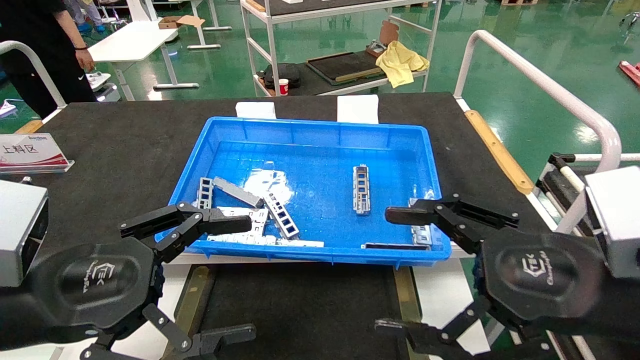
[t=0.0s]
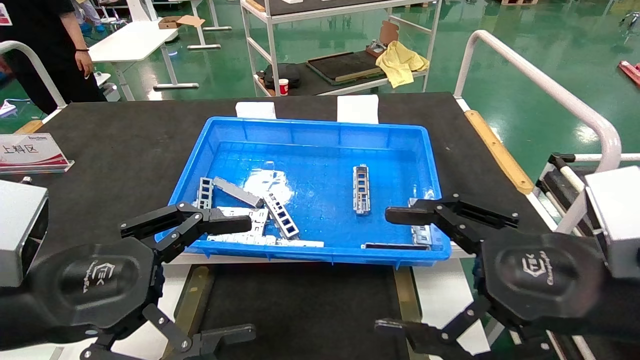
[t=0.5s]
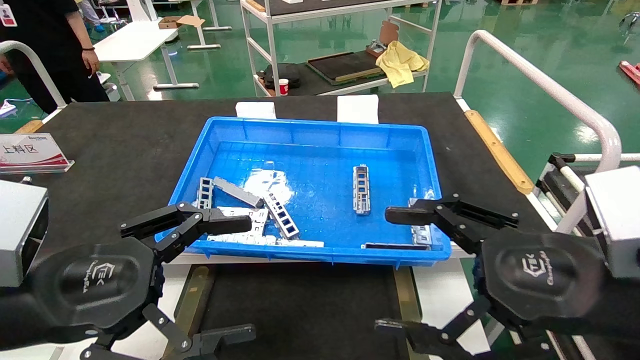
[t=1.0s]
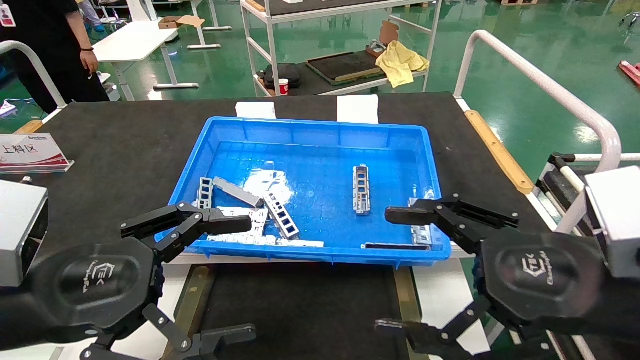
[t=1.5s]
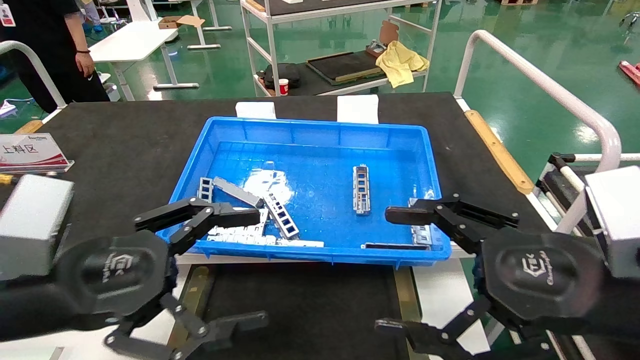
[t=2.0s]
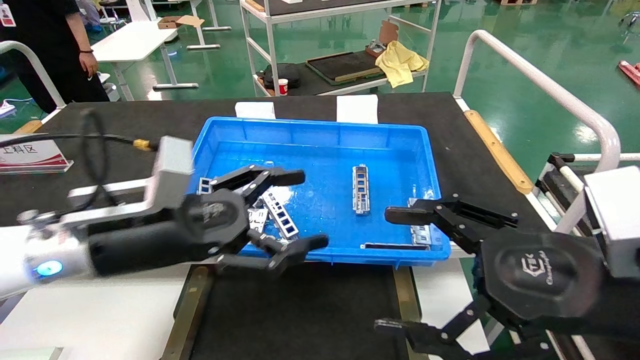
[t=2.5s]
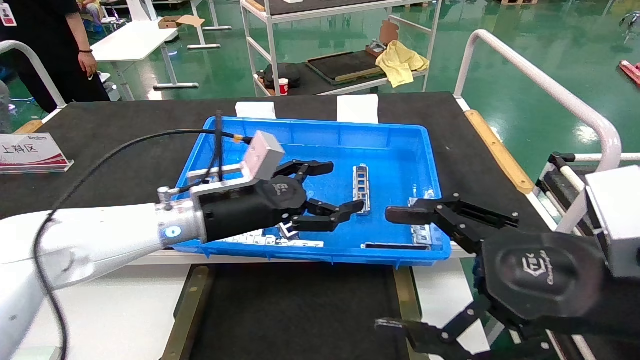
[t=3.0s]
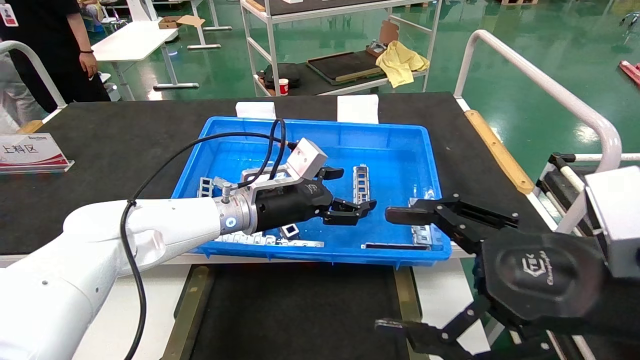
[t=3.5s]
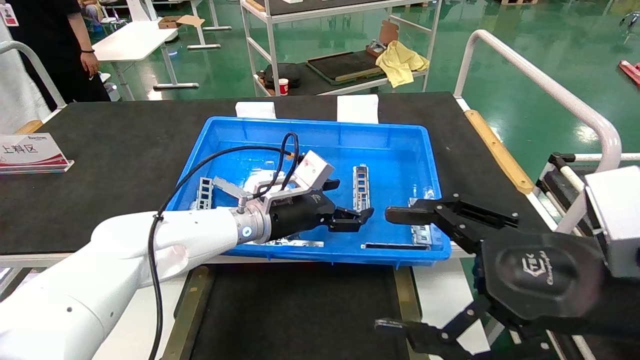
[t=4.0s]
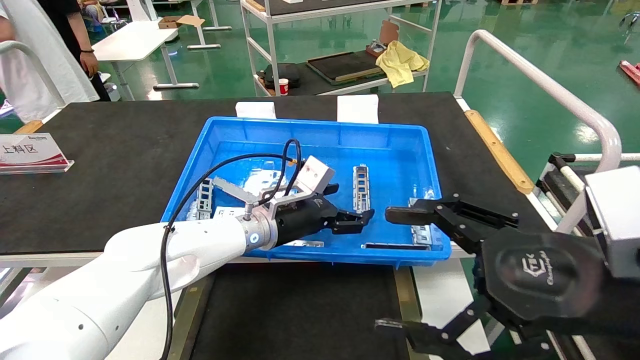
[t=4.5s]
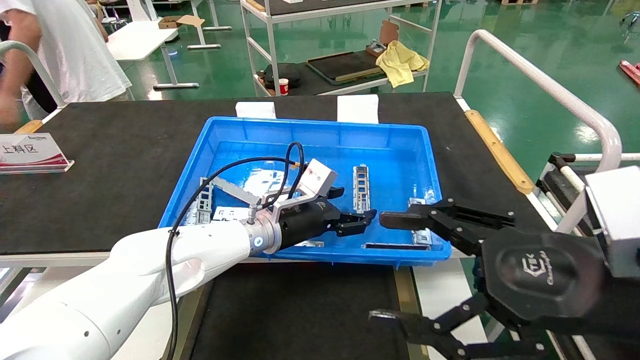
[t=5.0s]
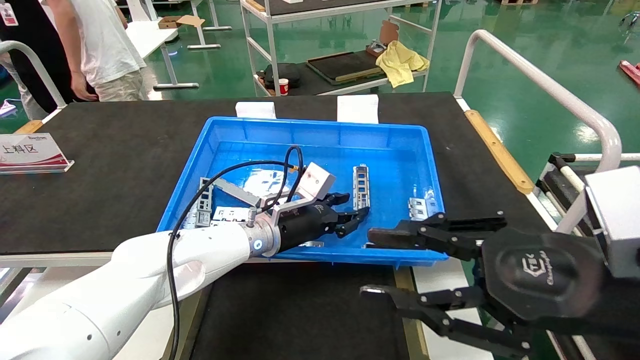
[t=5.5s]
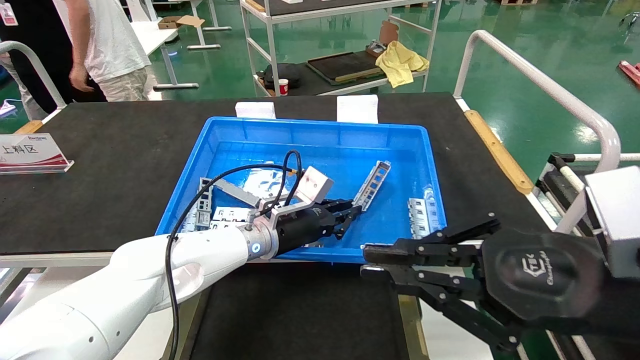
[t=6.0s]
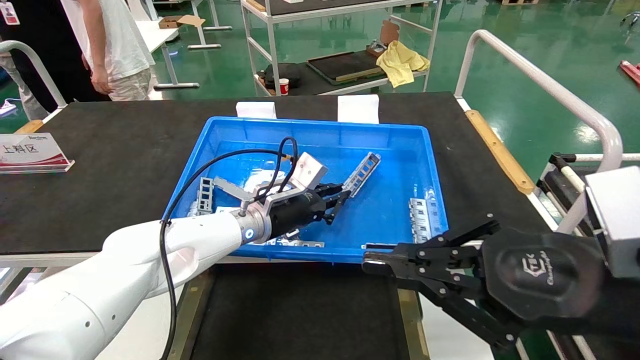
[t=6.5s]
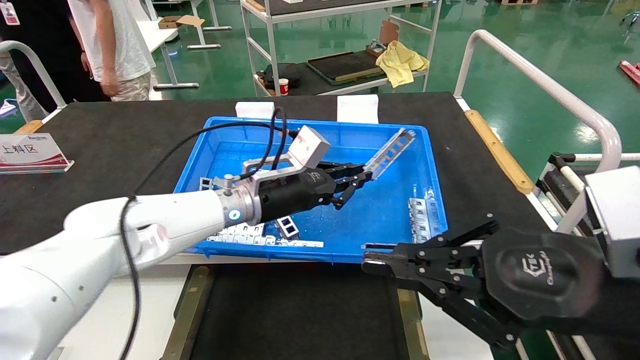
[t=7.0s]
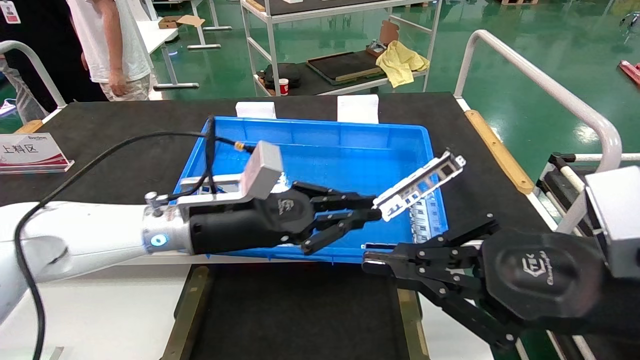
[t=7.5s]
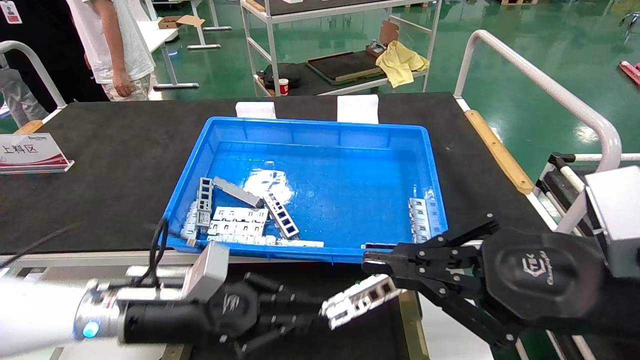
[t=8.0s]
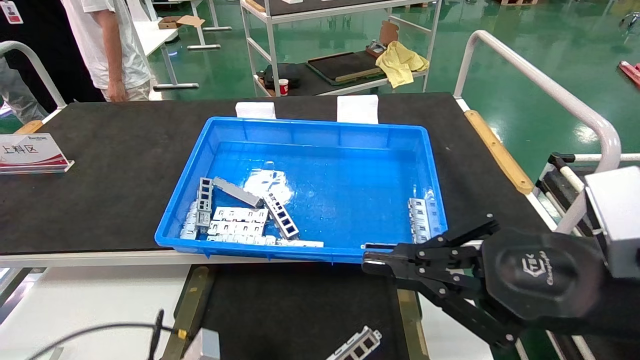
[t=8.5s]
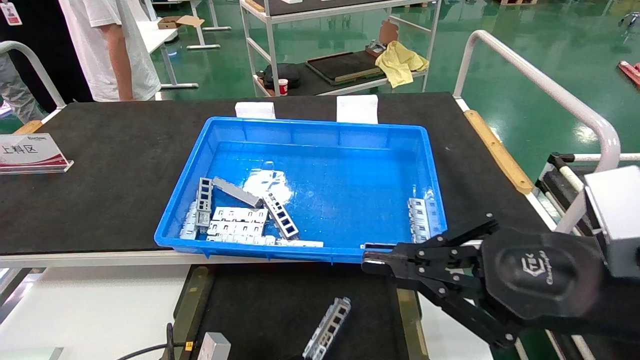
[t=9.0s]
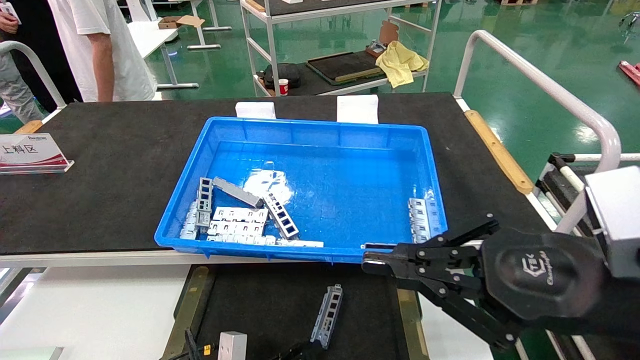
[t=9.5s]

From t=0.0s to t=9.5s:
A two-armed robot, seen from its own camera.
Task of the whole recording: Grasp the part with one hand and place it on the black container.
Step, from t=2.5s to t=6.0s: Pick up the front USB bracket from the feeding area.
From t=0.0s to t=2.0s: The grippers move only a little.
From t=2.0s to t=4.0s: The left gripper heads forward and to the right, covering roughly 30 cm.
From t=4.0s to t=5.5s: The left gripper closes up. The right gripper closes up.
From t=5.5s to t=7.5s: The right gripper closes; the left gripper moves backward, to the left and upward, some 15 cm, and closes up.
From t=7.5s to t=9.5s: The left gripper moves downward, some 30 cm.

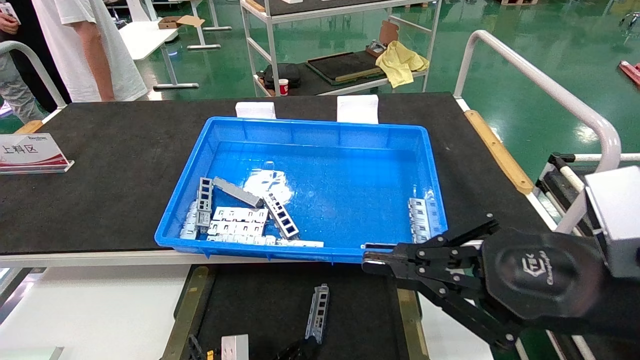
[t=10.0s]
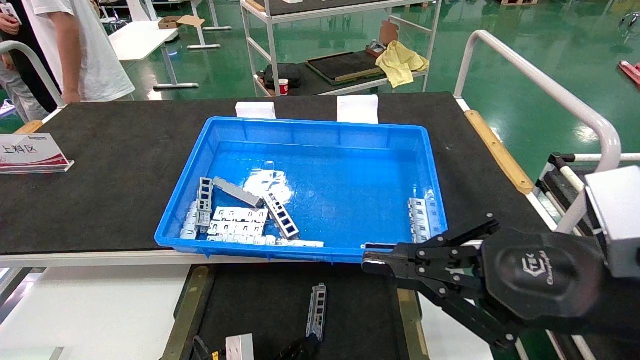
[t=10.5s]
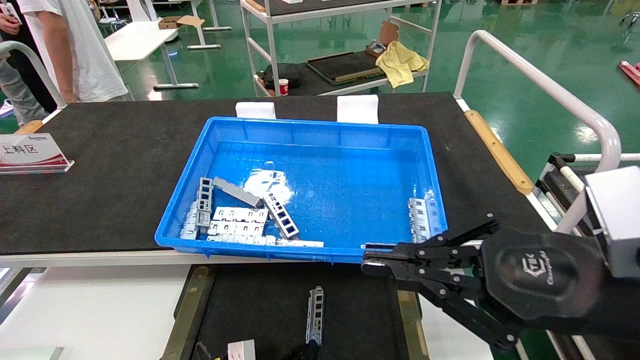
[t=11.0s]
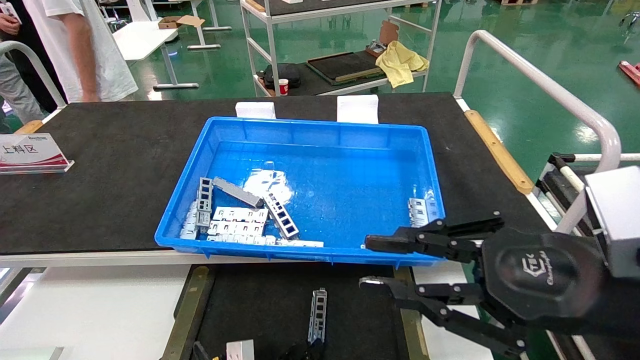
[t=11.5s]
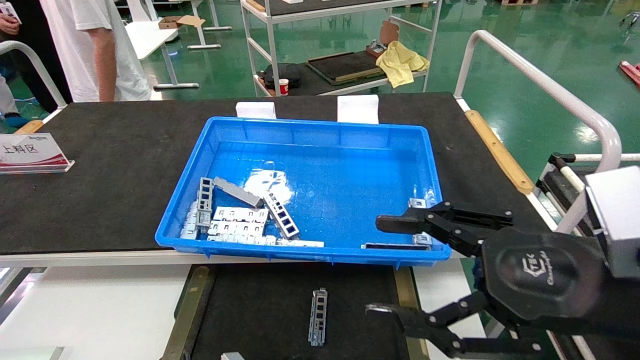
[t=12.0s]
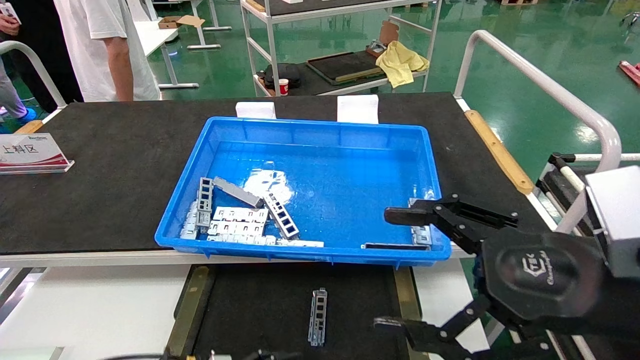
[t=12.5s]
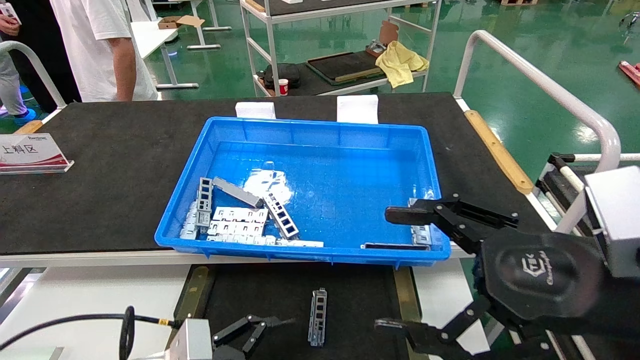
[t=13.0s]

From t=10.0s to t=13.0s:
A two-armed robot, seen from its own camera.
Task of the whole recording: Grasp the part with one hand and place it on the black container.
From t=10.0s to t=11.5s: The grippers stay close to where they were, moving slightly.
From t=11.5s to t=13.0s: The left gripper is displaced upward by about 15 cm, and opens its fingers. Meanwhile the right gripper opens its fingers.

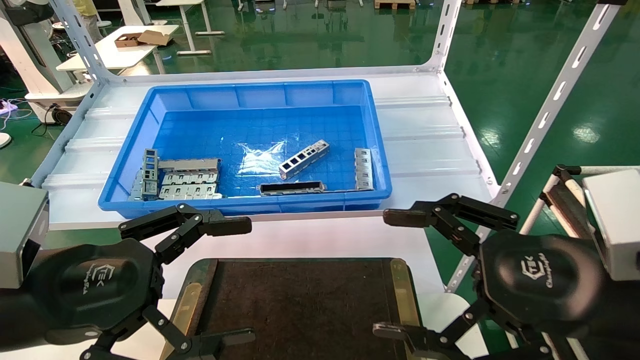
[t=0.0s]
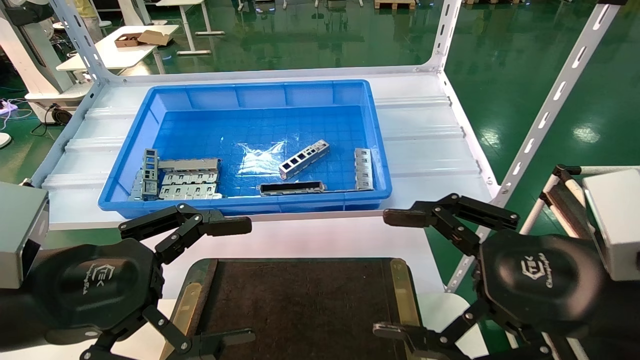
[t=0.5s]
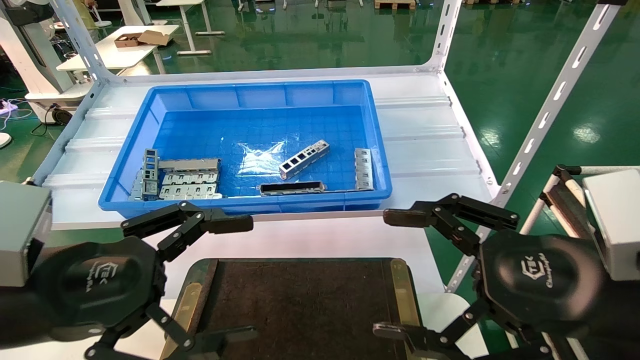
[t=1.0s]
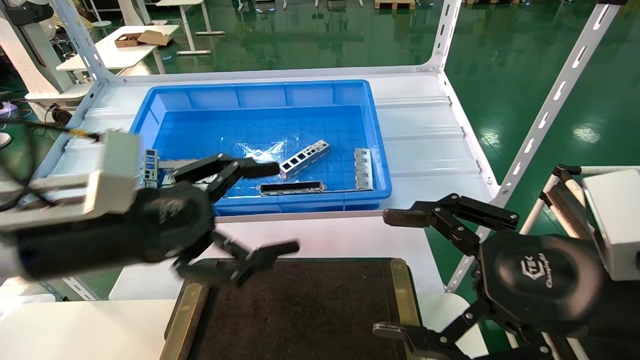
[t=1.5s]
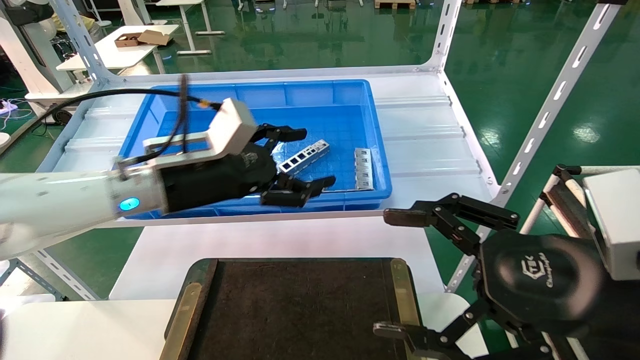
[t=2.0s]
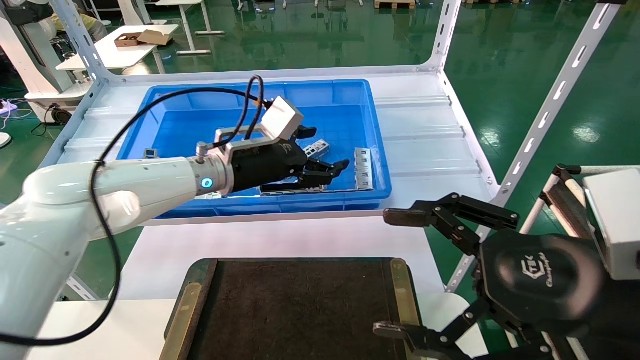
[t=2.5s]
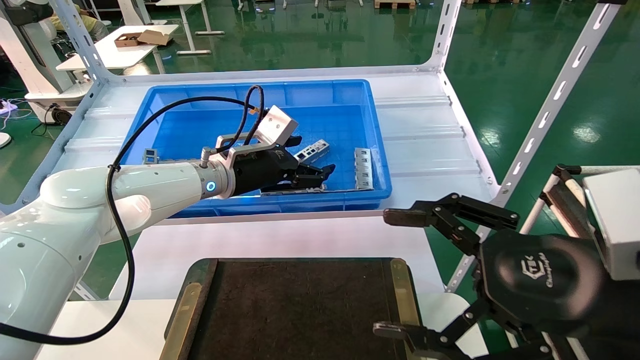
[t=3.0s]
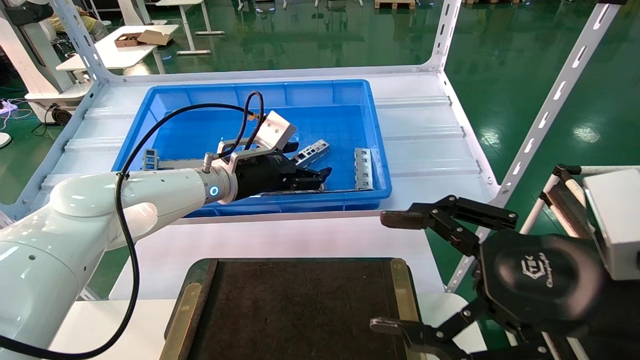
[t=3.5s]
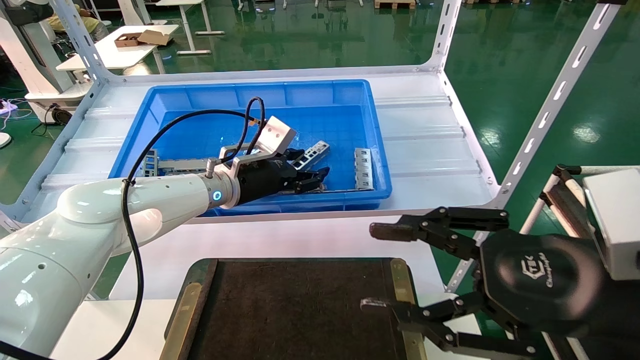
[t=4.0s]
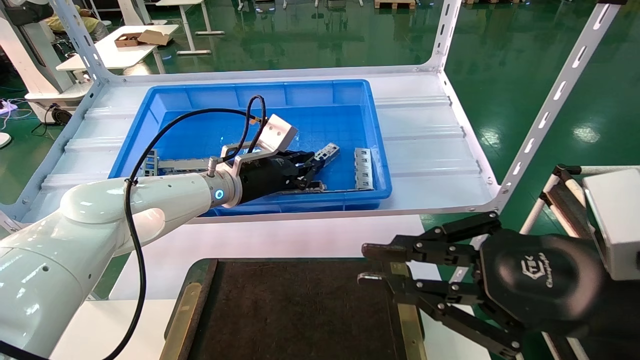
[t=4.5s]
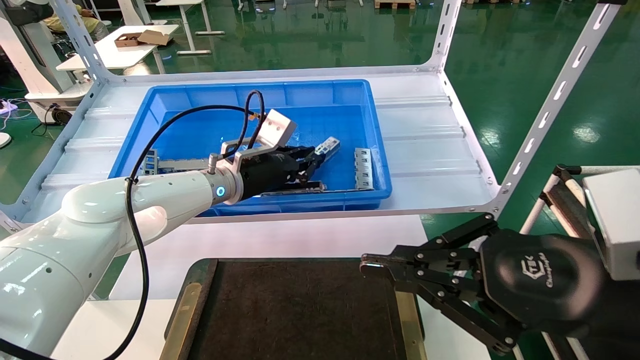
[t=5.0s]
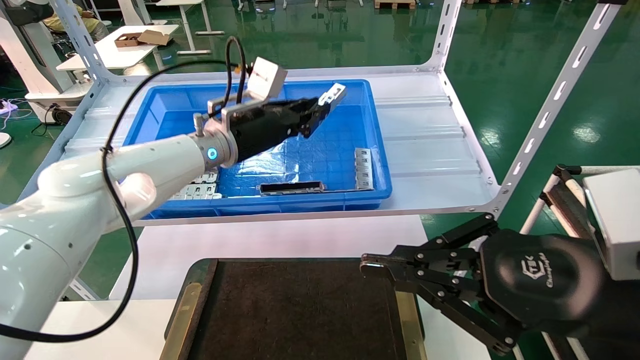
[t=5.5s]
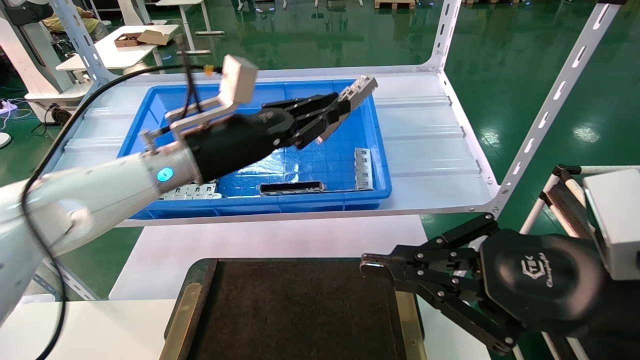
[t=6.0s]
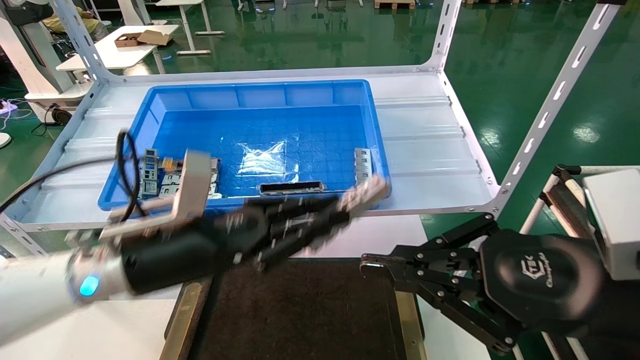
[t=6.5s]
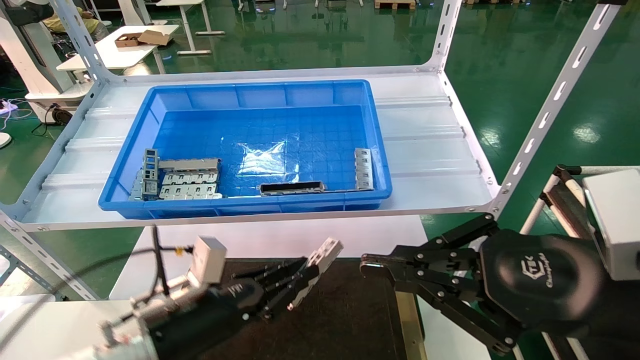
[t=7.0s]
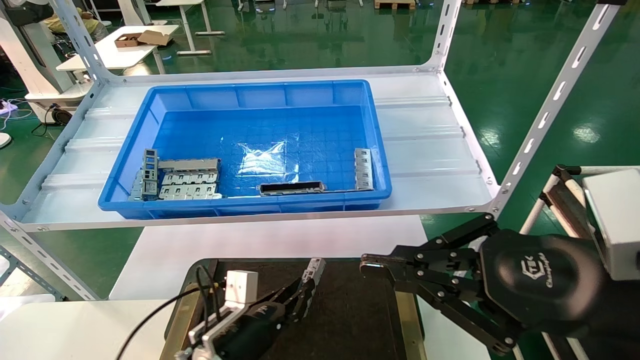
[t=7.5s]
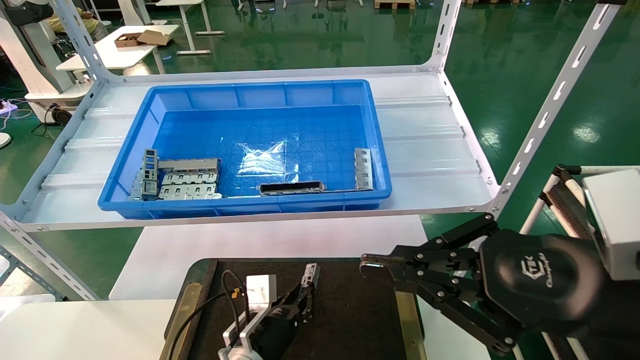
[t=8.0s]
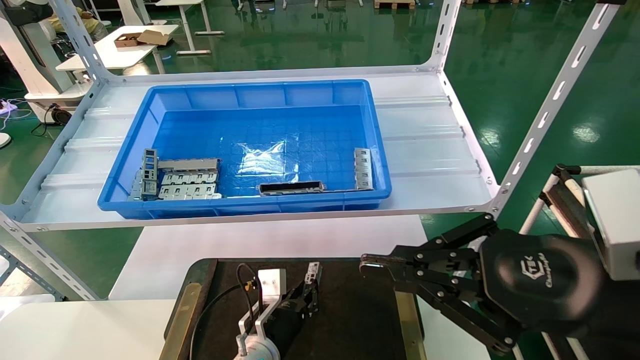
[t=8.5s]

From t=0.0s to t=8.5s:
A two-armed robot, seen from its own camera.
Task of the whole recording: Grasp the part with one hand and place it on the black container.
Step, from t=1.5s to t=4.0s: Pick up the front USB bracket from the feeding area.
From t=0.0s to t=2.0s: The left gripper is displaced forward and to the right by approximately 20 cm.
From t=2.0s to t=4.0s: The left gripper heads forward, covering some 10 cm.
From t=4.0s to t=6.5s: The right gripper closes. Meanwhile the left gripper goes approximately 15 cm backward, and closes up.
From t=6.5s to t=8.5s: The left gripper moves downward and to the right, some 25 cm.
